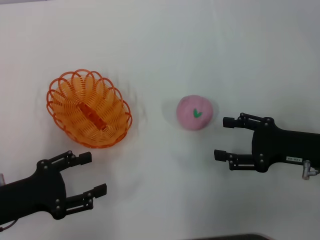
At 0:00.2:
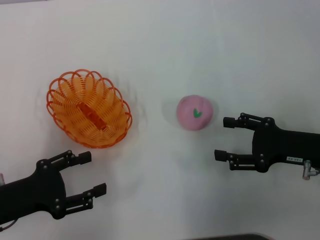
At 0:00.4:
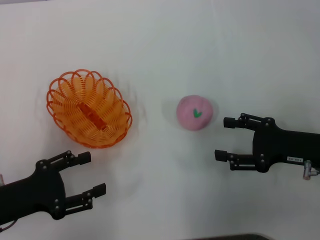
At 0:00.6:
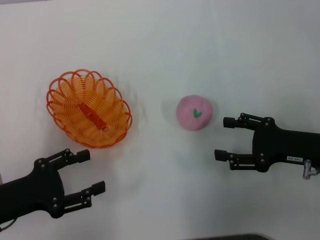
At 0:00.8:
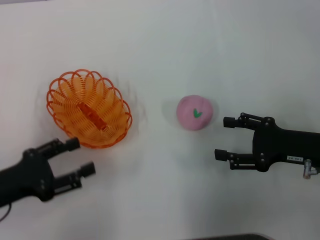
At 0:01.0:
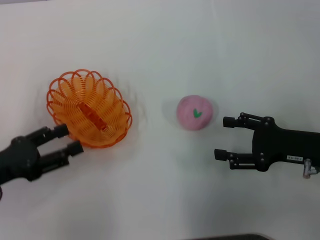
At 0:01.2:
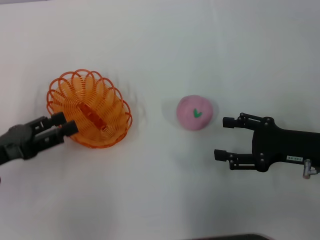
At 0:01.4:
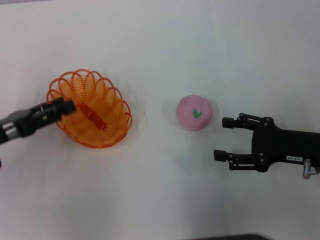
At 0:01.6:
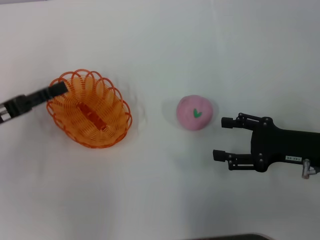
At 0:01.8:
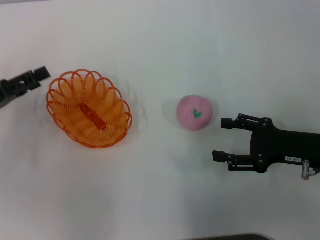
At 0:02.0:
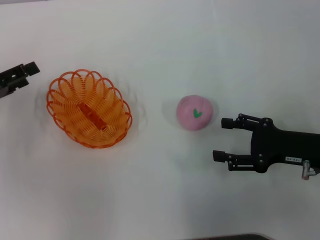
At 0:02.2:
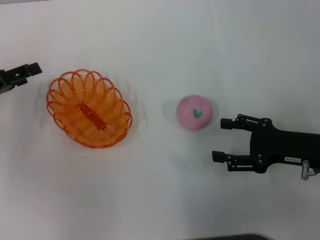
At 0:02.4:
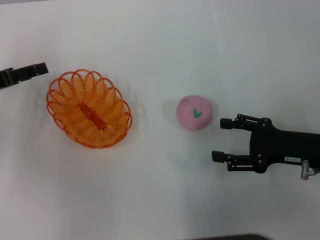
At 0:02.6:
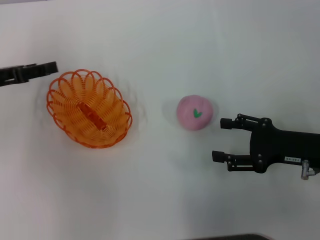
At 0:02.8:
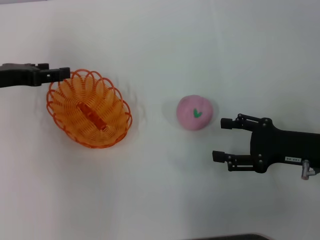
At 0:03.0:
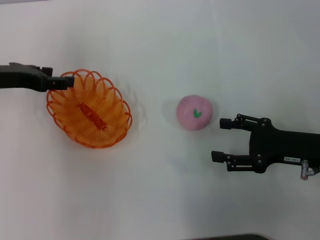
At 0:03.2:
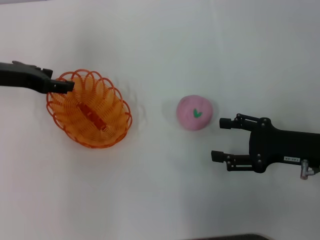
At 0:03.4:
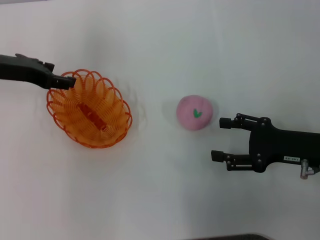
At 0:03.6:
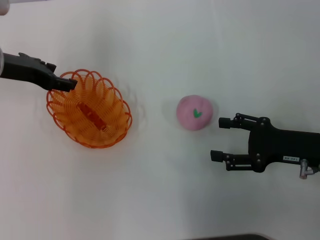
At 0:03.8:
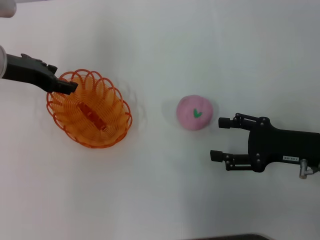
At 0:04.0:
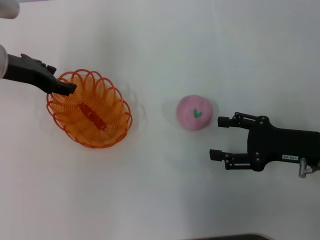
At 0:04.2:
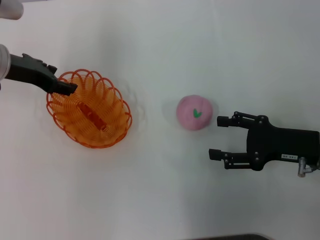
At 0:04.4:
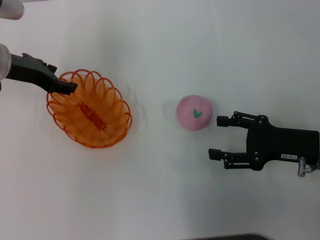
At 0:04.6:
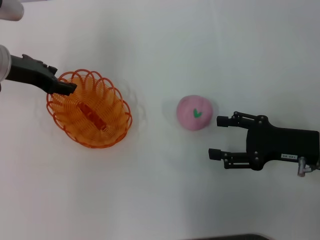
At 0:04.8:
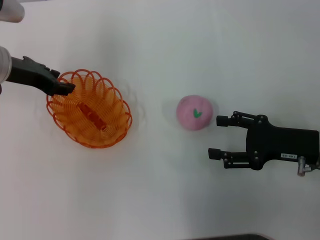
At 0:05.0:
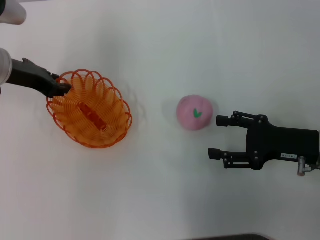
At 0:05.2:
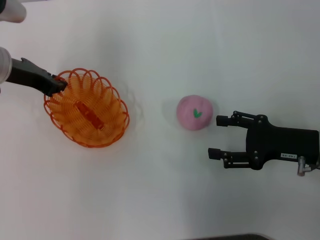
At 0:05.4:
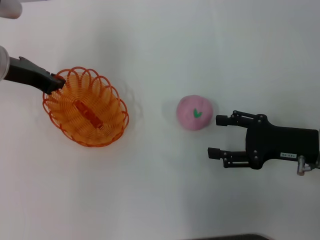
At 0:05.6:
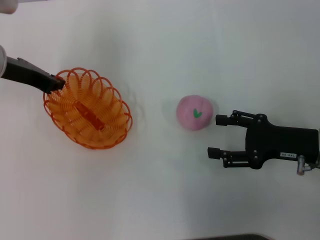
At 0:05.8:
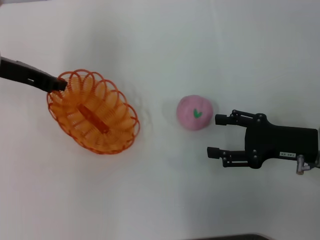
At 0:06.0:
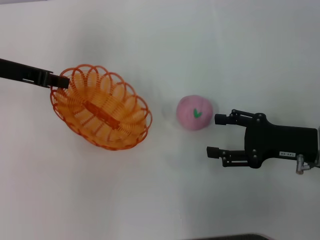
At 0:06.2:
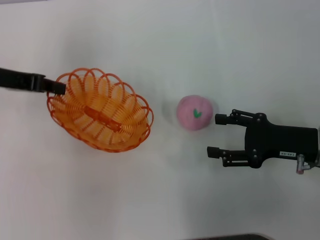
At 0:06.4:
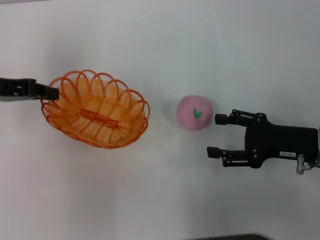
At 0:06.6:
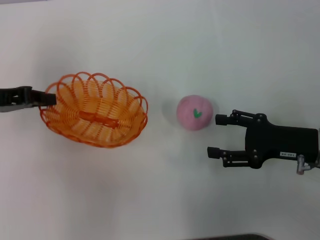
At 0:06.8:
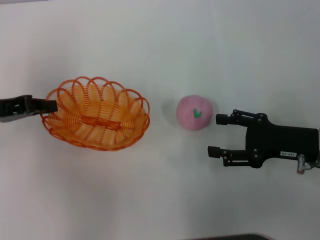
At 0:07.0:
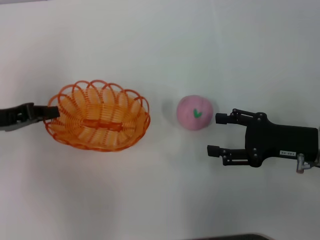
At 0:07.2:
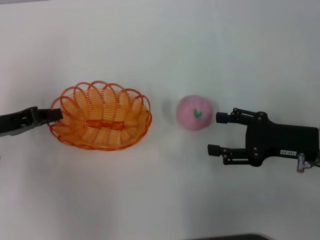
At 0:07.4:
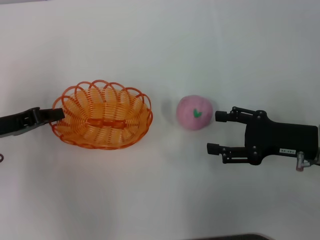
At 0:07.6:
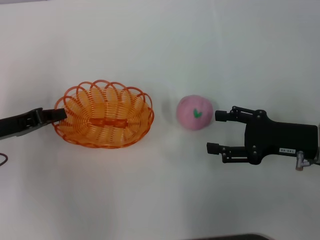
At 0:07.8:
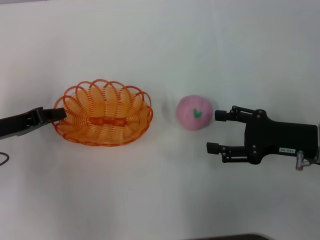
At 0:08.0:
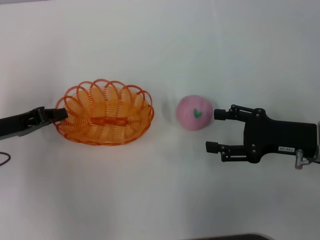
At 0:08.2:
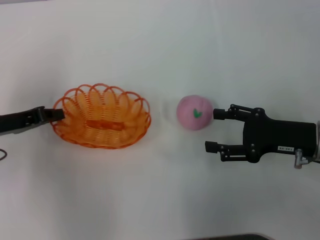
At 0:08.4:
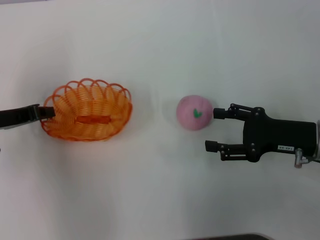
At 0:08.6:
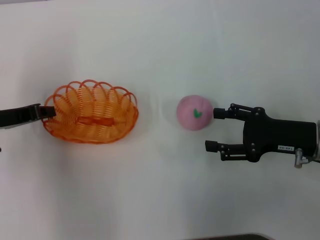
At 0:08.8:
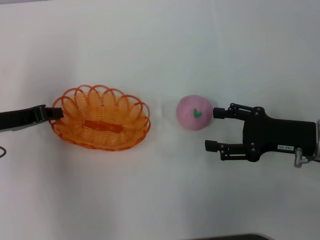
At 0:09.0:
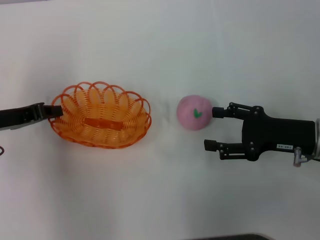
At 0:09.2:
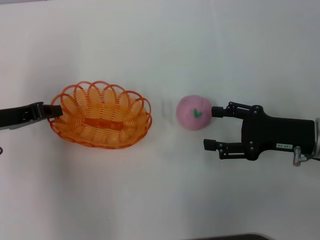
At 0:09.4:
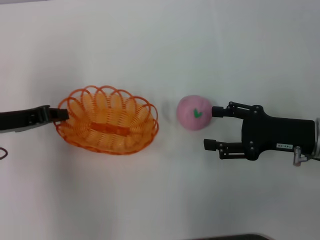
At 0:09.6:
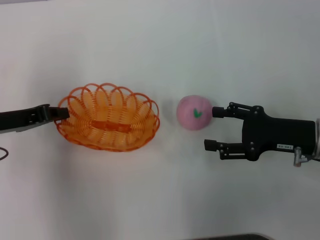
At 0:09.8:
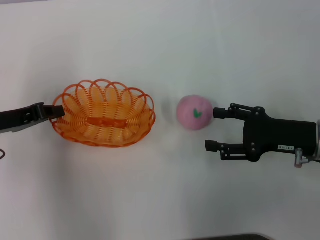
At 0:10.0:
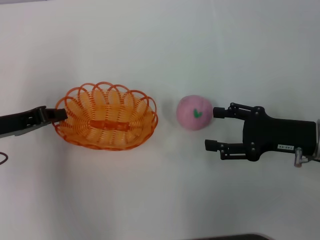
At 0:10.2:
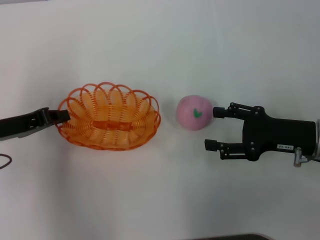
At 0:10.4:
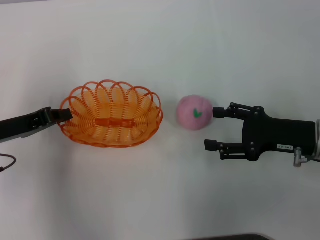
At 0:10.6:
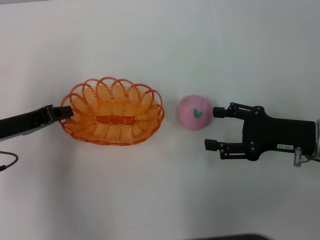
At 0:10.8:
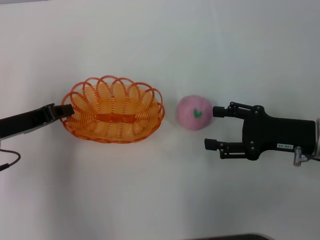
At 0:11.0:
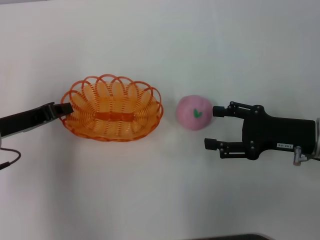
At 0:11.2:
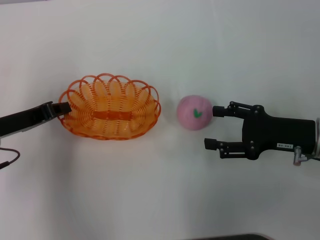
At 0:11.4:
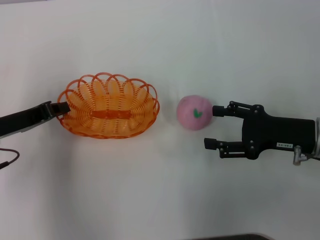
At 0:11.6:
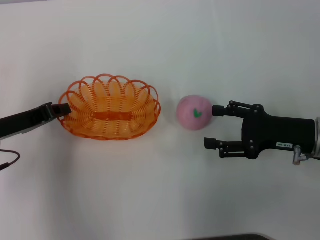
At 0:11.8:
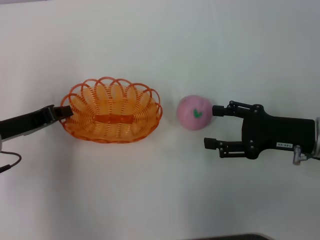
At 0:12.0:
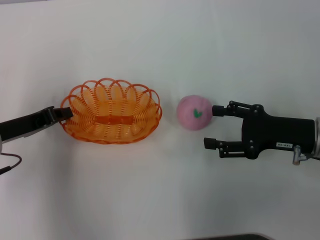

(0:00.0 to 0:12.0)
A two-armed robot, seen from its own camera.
Step, 0:00.0 - 0:06.2: Pick up the basket with the left gripper.
0:00.0 - 0:01.6: The left gripper shifts approximately 5 cm forward.
0:01.6 - 0:03.0: The left gripper travels forward by about 10 cm.
0:04.4 - 0:06.0: The left gripper closes its fingers.
0:06.0 - 0:07.6: The left gripper moves backward and downward, roughly 15 cm.
0:07.6 - 0:10.4: The grippers make only small movements.
0:10.4 - 0:12.0: Both grippers stay about where they are.

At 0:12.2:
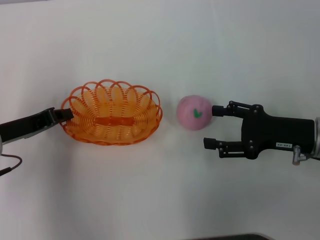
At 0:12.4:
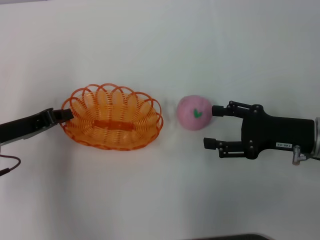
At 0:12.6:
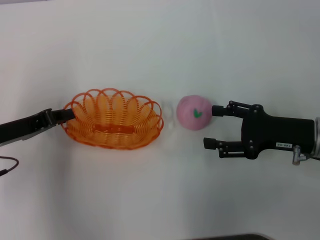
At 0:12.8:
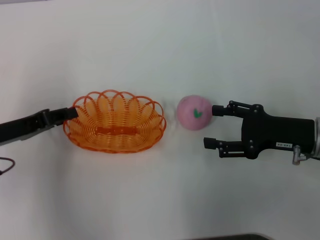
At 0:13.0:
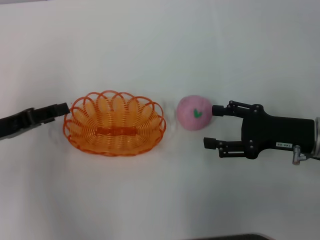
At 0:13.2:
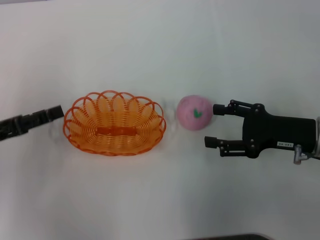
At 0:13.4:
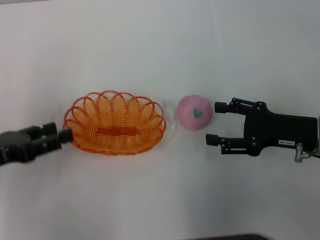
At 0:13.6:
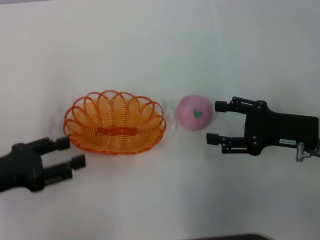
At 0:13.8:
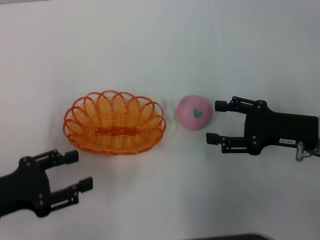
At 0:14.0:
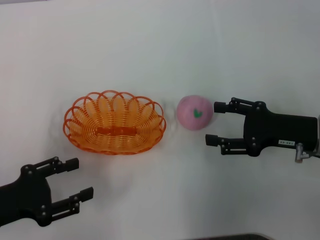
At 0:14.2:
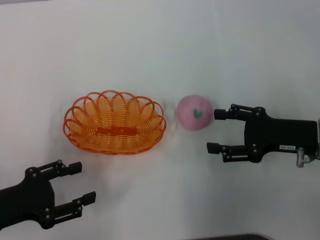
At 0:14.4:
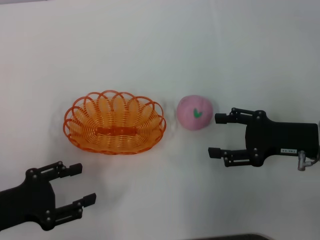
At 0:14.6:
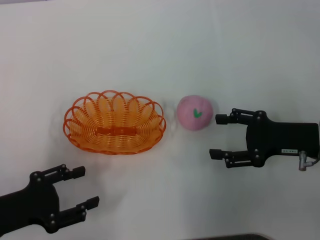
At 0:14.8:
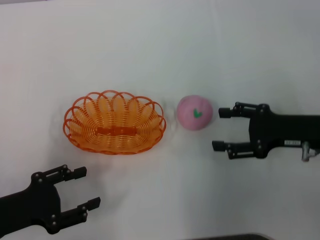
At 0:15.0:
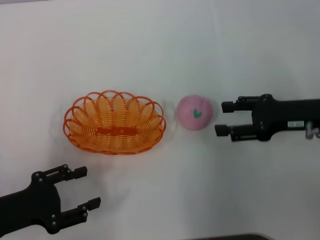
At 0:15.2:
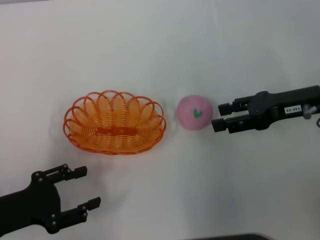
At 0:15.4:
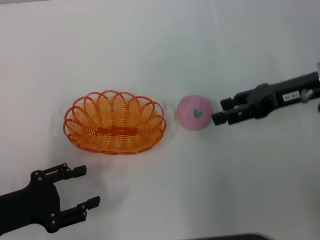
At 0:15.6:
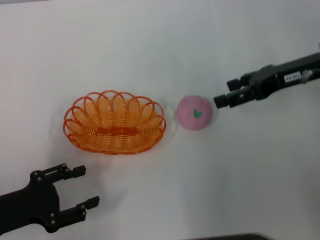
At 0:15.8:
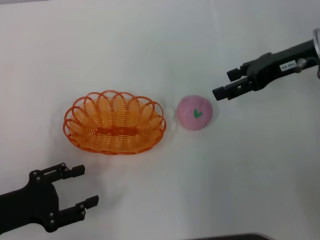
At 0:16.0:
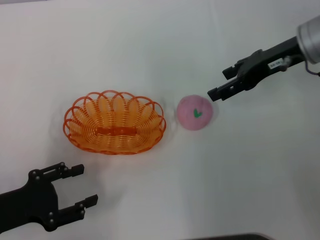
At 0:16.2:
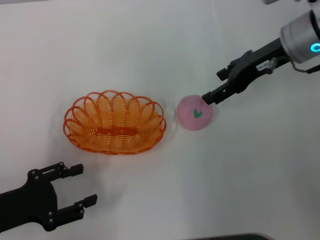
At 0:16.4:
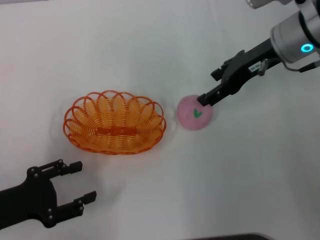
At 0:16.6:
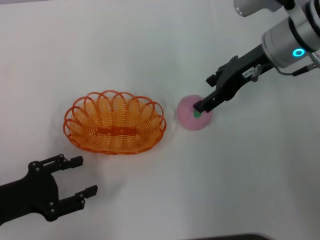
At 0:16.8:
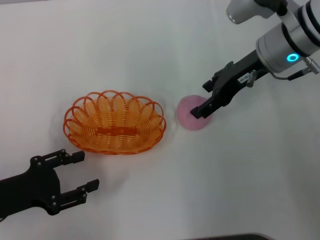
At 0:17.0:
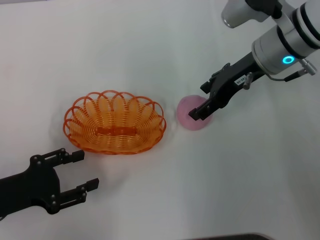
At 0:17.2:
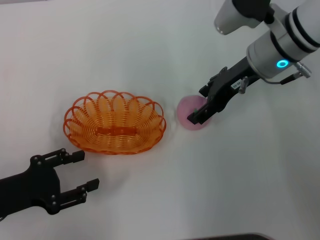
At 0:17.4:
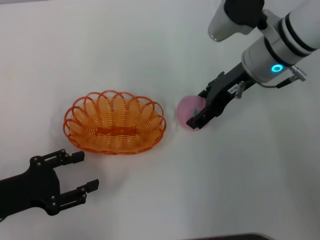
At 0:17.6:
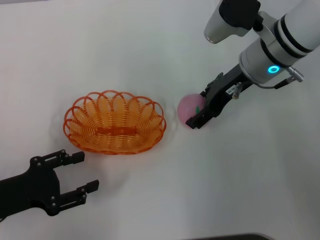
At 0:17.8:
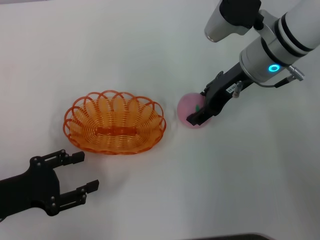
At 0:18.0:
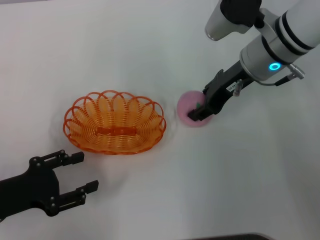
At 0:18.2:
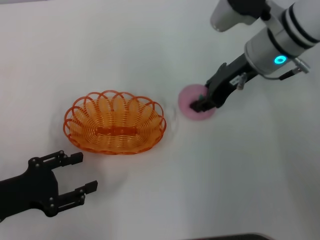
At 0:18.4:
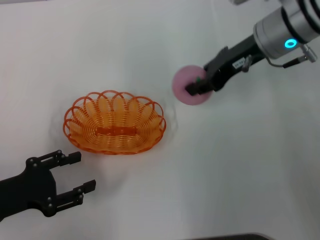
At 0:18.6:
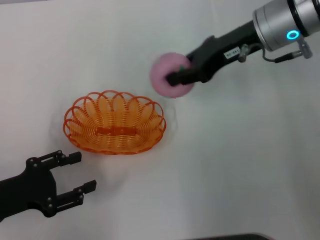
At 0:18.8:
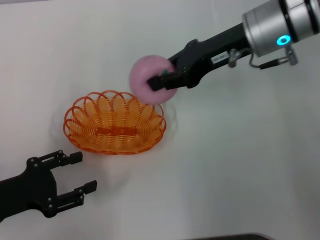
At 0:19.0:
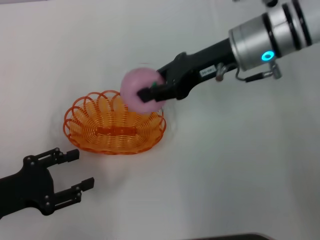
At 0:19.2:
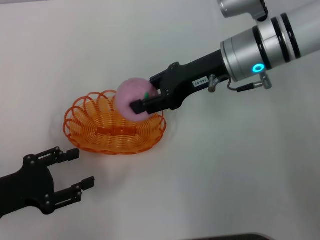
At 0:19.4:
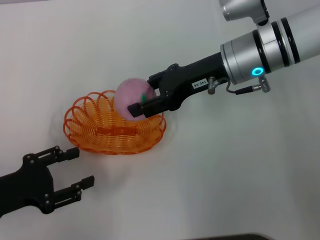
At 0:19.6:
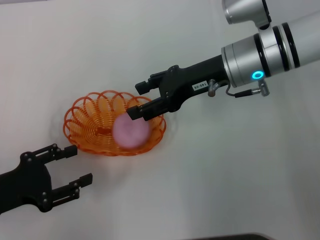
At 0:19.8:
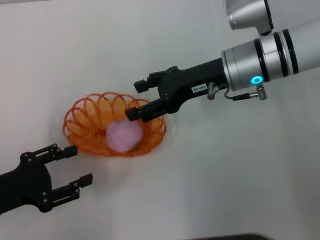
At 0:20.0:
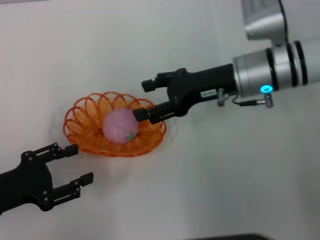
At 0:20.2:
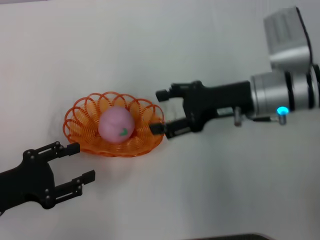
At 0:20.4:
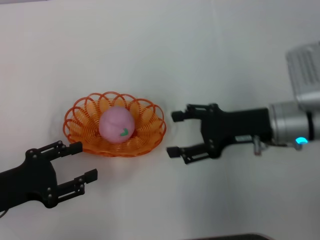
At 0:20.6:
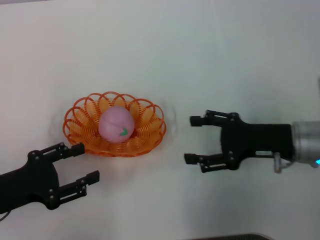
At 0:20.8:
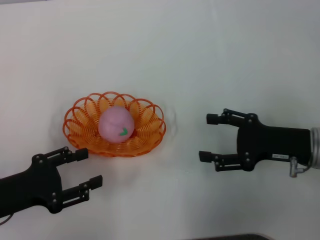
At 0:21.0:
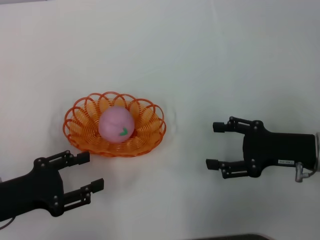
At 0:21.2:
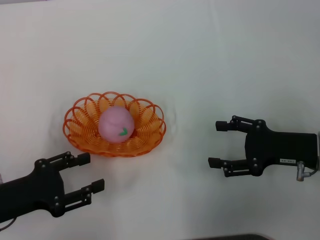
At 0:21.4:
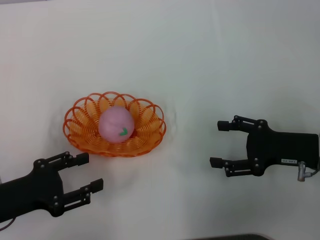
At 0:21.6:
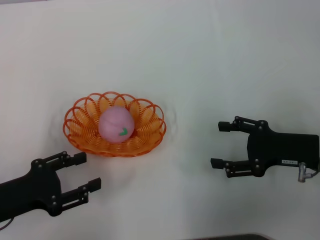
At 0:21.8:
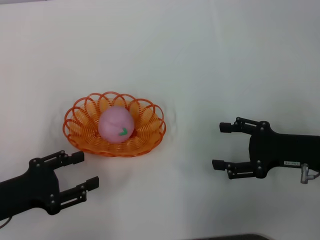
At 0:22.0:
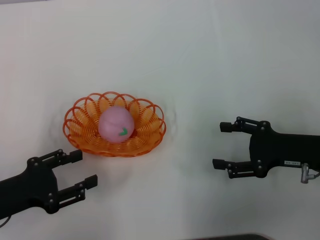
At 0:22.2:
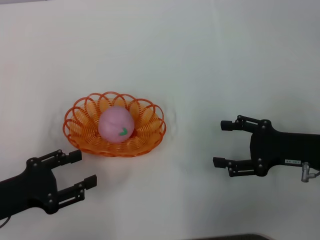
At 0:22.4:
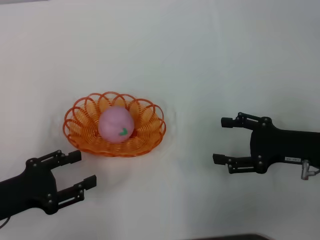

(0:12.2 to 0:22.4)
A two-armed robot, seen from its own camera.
Step, 0:12.2 - 0:14.2: Place the basket in the center of view with the left gripper.
Step, 0:14.6 - 0:18.4: Pick up the peach with the right gripper.
Step, 0:18.8 - 0:20.6: Place the peach into the basket with the right gripper.
0:12.2 - 0:13.6: The left gripper is displaced backward by approximately 5 cm, and opens.
0:13.6 - 0:15.2: The left gripper shifts by approximately 5 cm, while the right gripper travels forward and upward by approximately 5 cm.
0:15.2 - 0:16.6: The right gripper goes some 10 cm to the left and forward.
0:16.6 - 0:18.0: The grippers move only a little.
0:18.0 - 0:19.4: The right gripper closes.
0:19.4 - 0:21.0: The right gripper heads backward, to the right and downward, covering roughly 20 cm, and opens its fingers.
0:21.0 - 0:22.4: The two grippers keep their place.
